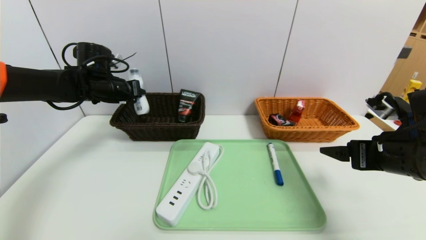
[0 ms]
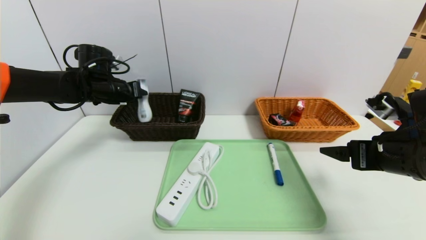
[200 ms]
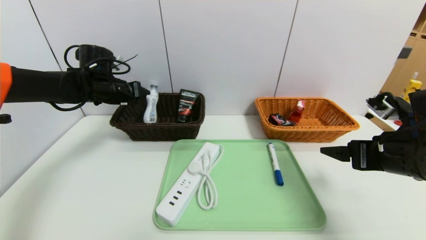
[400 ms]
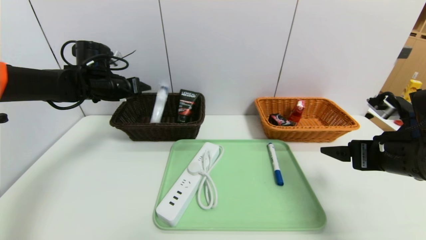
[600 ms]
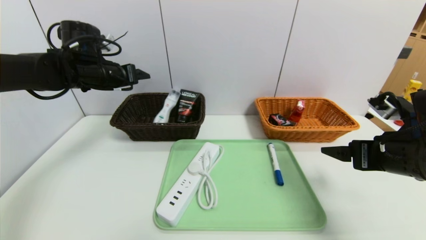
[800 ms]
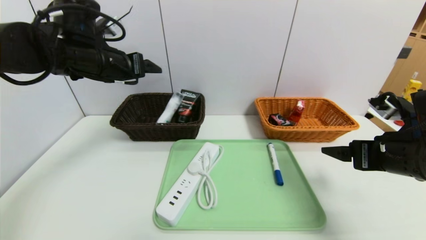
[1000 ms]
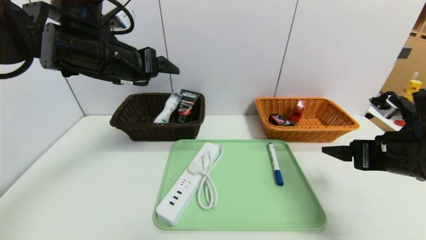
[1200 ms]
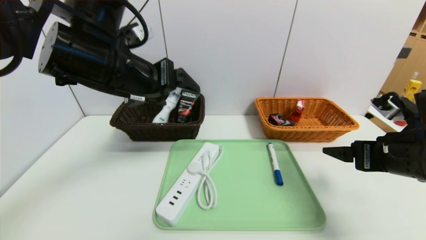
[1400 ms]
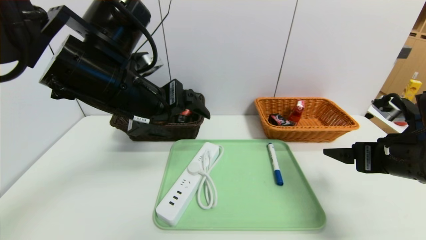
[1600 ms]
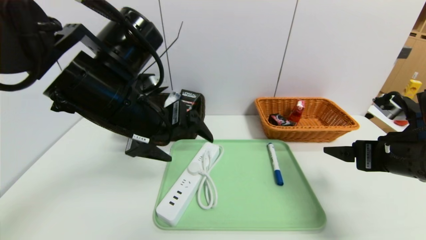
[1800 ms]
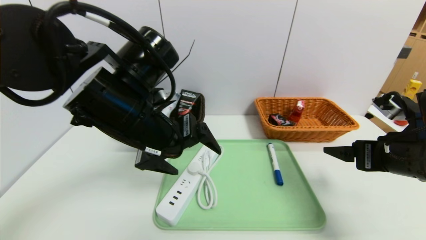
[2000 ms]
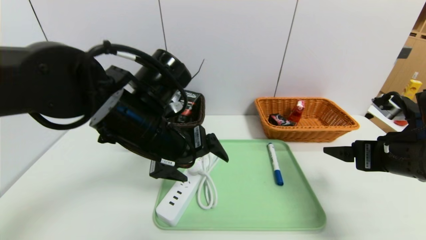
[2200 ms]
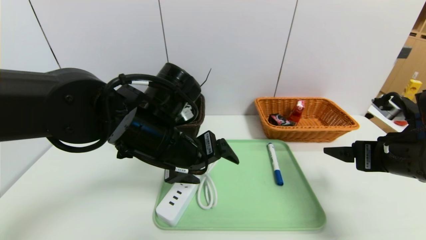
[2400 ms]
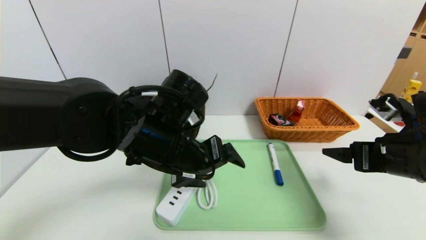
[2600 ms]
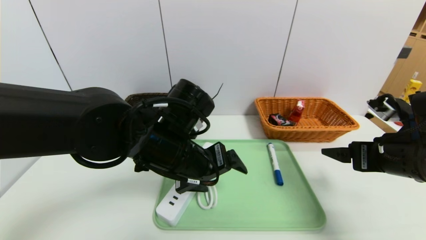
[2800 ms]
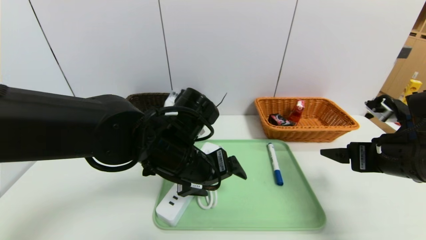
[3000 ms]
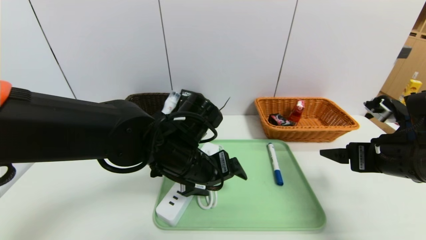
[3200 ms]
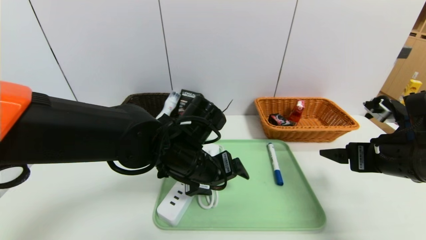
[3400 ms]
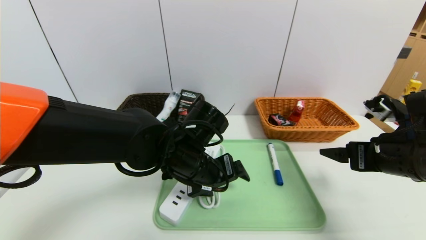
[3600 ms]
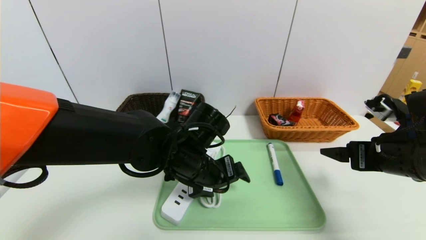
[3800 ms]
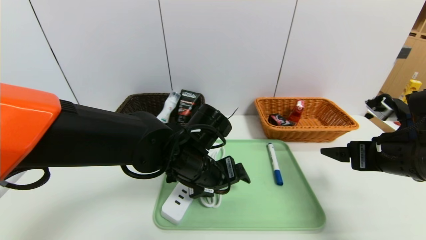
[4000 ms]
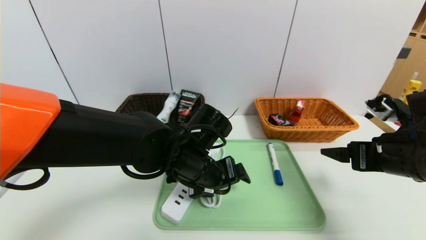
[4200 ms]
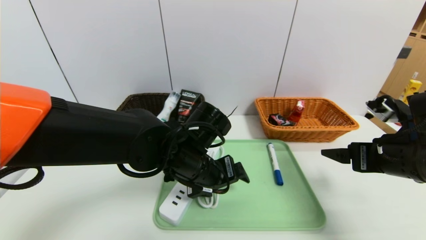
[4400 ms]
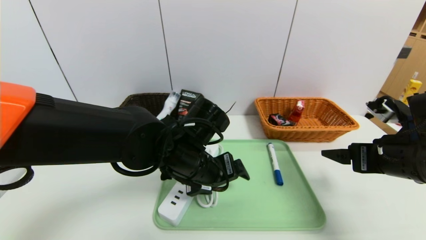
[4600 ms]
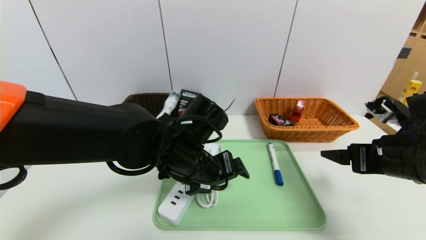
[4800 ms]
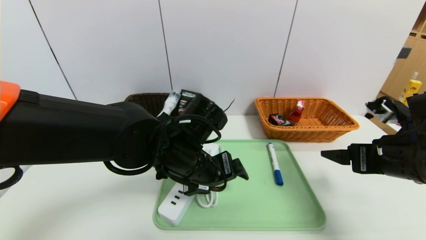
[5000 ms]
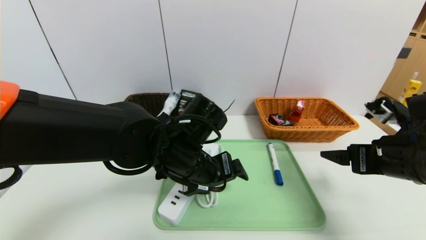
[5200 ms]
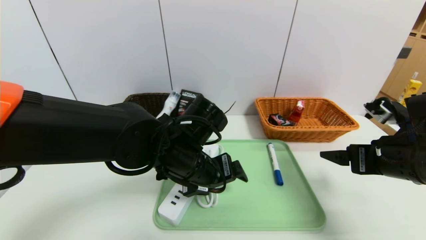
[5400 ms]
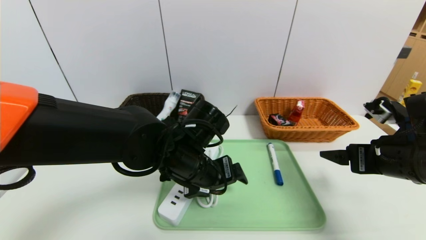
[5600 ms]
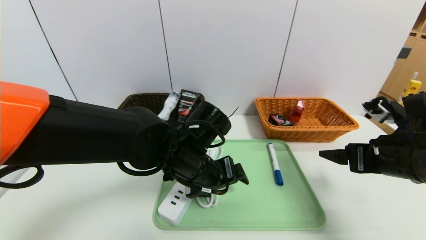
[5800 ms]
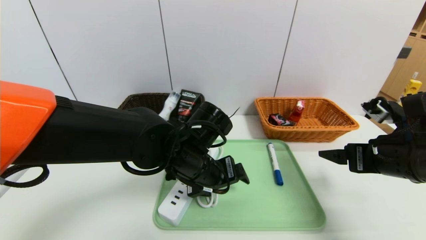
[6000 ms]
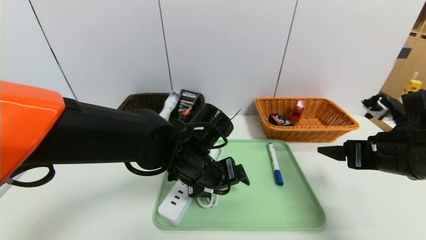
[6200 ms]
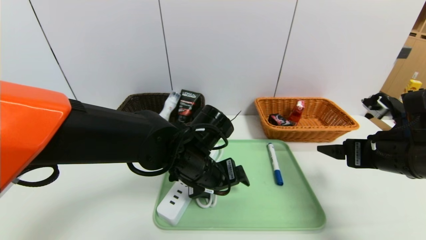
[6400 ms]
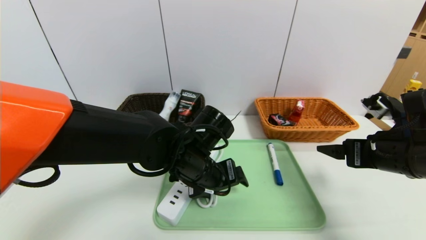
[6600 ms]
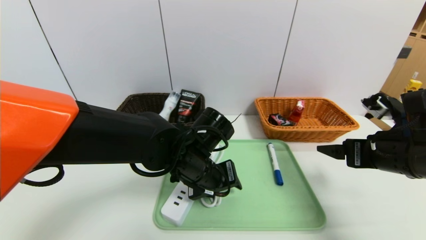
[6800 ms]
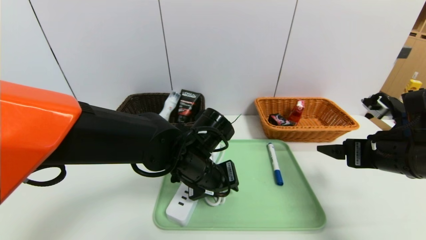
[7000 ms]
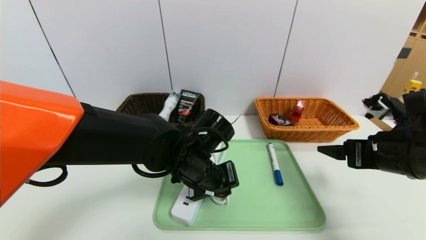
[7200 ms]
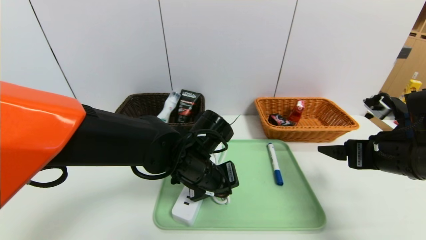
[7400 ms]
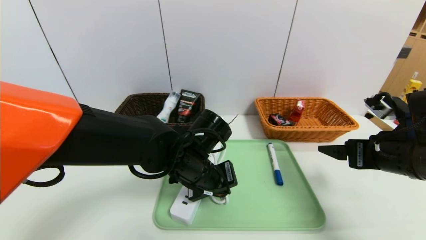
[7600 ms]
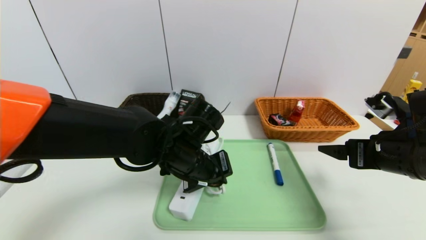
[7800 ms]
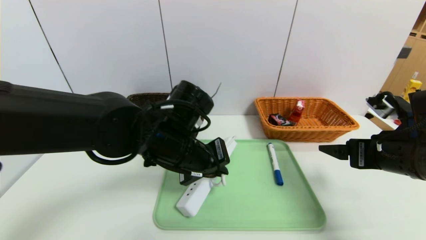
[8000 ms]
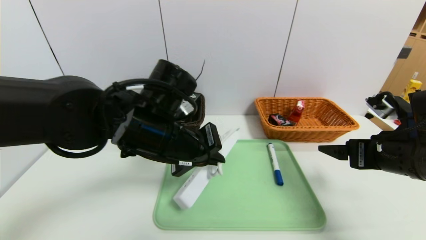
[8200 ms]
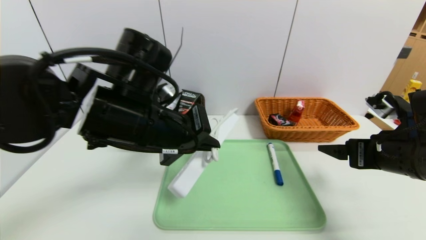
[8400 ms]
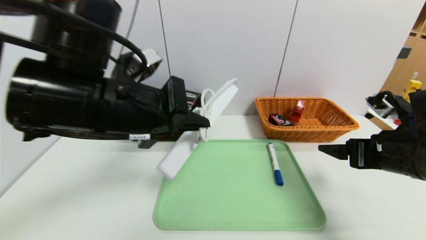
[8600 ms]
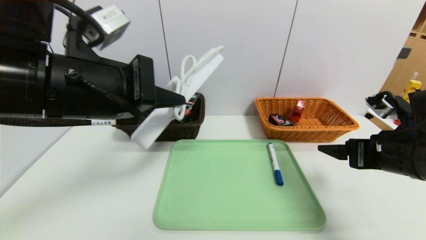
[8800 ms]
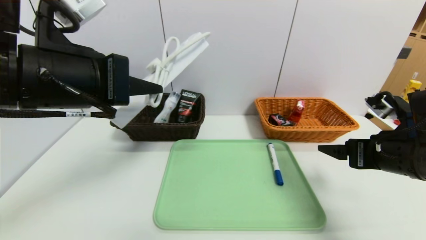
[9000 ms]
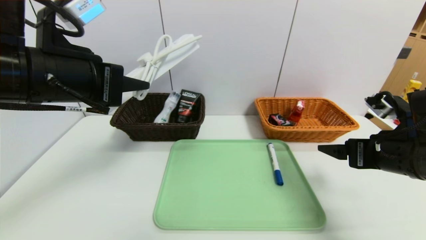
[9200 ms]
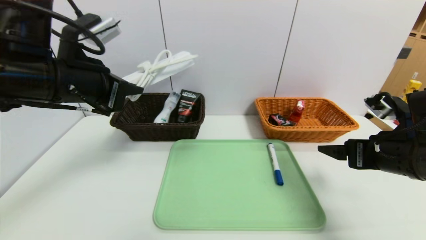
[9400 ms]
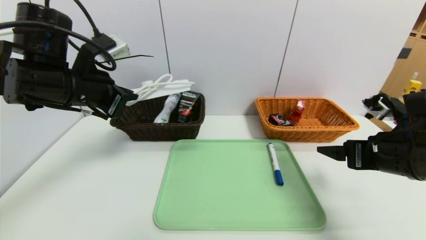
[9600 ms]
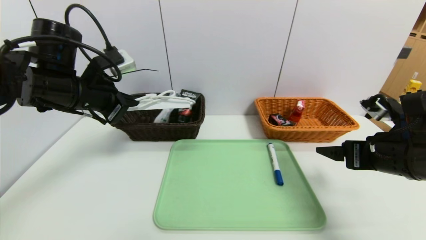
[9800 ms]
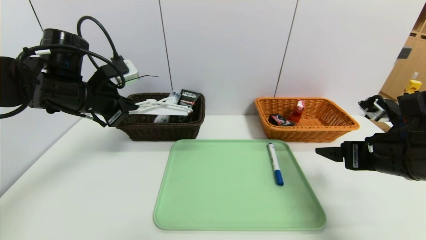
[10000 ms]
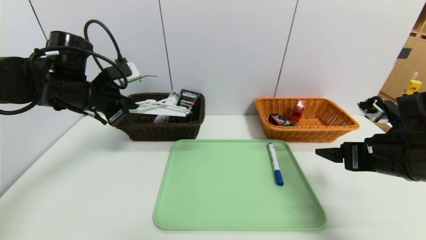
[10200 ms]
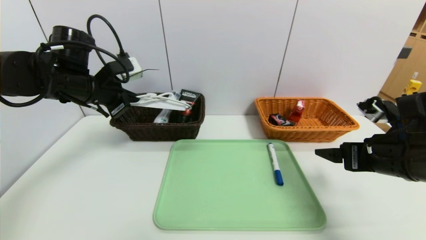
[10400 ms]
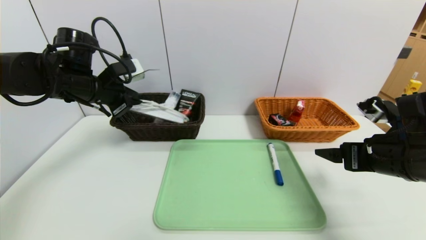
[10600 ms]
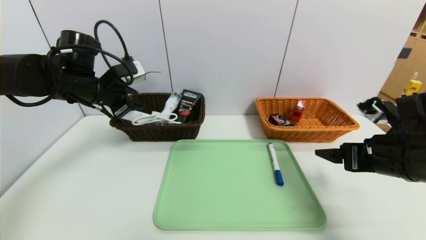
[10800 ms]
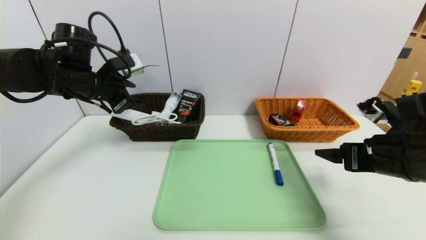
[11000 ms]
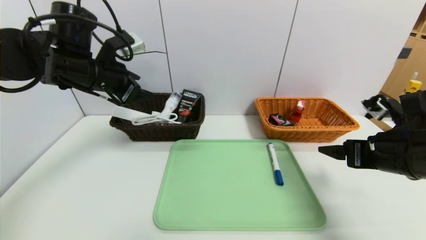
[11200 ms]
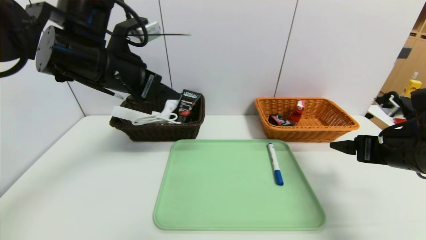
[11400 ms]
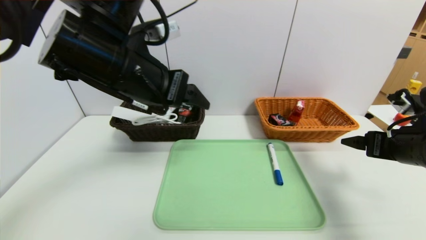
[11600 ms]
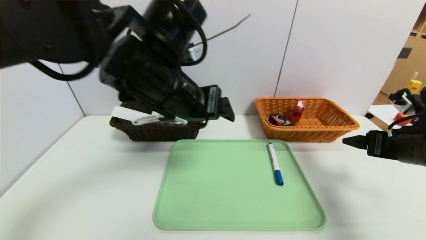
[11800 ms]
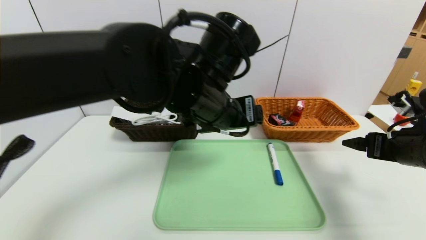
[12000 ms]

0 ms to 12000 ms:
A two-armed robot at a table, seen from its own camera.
Task of the whole recording: place the food in the right basket with the right gripper, and place the non food items in the left basket with the left gripper.
Step, 1000 ms to 11400 ms: Grasp the power strip and put it in the left basket.
0 ms to 1600 ms: The left gripper moves backward, to the right and upward, approximately 25 cm, and opens its fingers.
1600 ms to 3000 ms: The left gripper travels downward and to the right by some 15 cm.
3000 ms to 6000 ms: There are only small adjustments of the grippers.
6000 ms to 7600 ms: The left gripper closes its fingers.
7600 ms to 9000 ms: The left gripper shifts some 25 cm upward, to the left and backward.
9000 ms to 10400 ms: The left gripper shifts approximately 20 cm forward, to the left and downward.
10400 ms to 12000 ms: The right gripper travels to the right by about 5 cm; the left gripper shifts roughly 25 cm to the right, and opens its fingers.

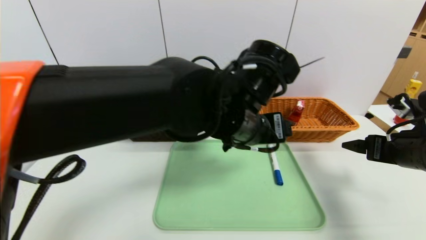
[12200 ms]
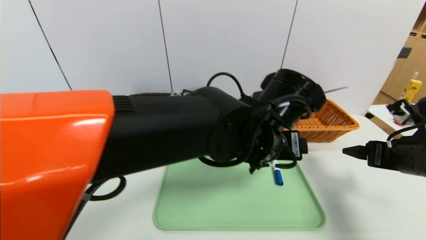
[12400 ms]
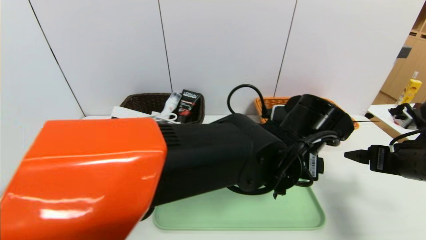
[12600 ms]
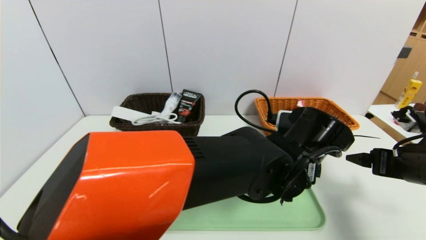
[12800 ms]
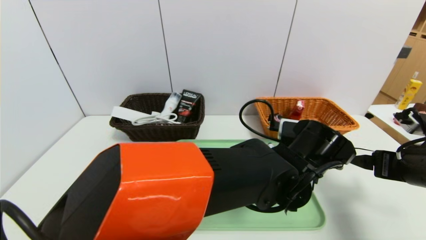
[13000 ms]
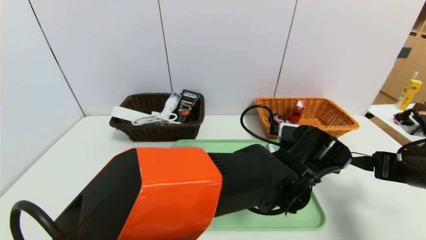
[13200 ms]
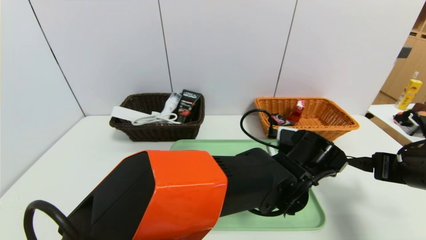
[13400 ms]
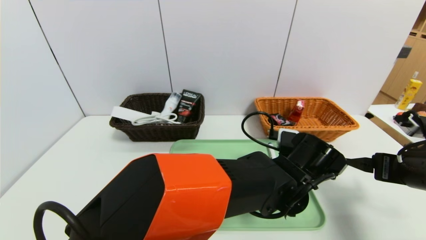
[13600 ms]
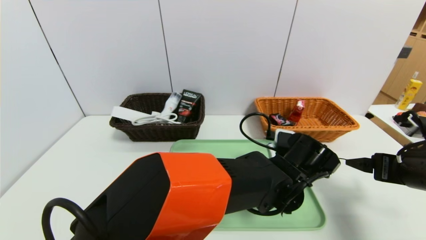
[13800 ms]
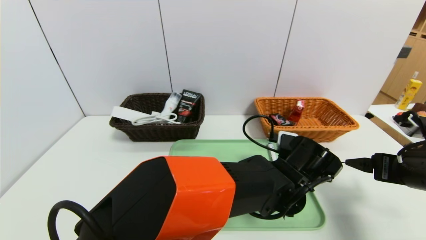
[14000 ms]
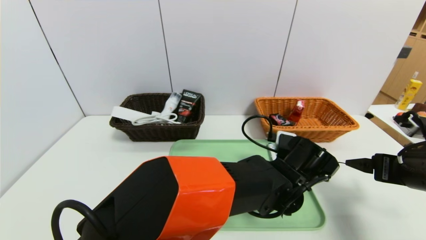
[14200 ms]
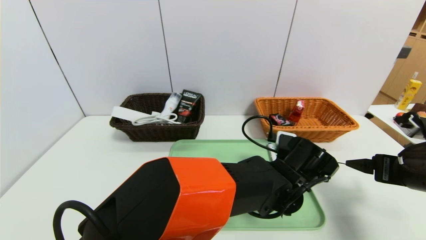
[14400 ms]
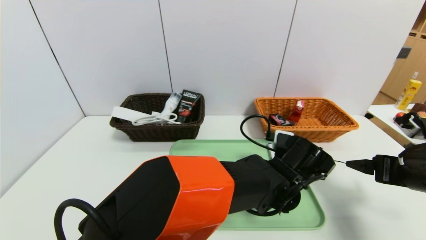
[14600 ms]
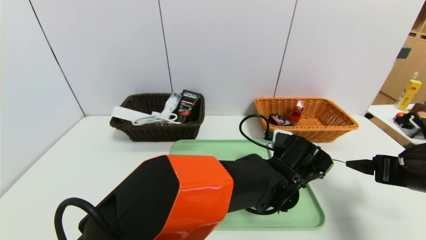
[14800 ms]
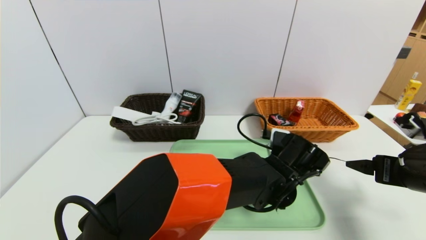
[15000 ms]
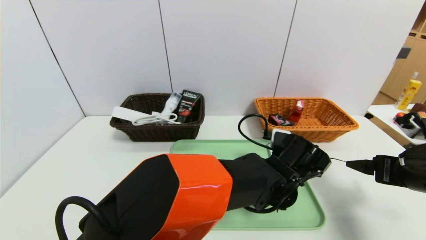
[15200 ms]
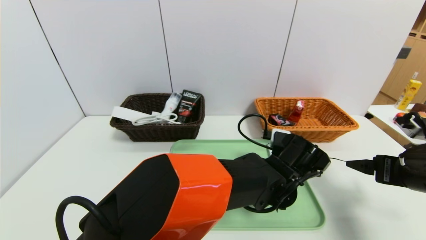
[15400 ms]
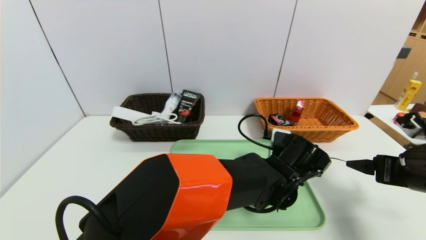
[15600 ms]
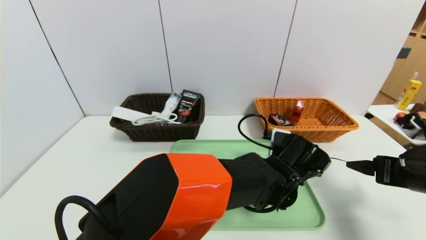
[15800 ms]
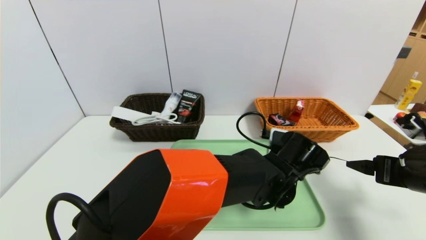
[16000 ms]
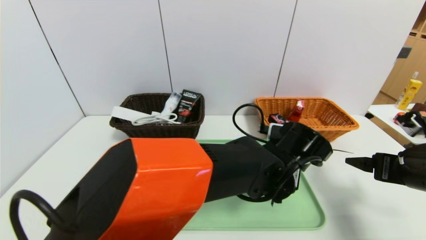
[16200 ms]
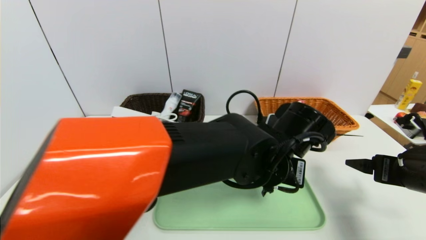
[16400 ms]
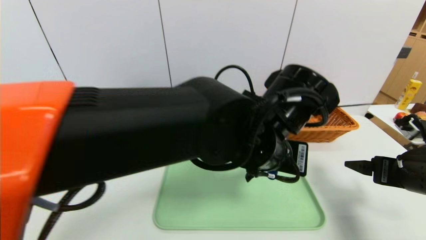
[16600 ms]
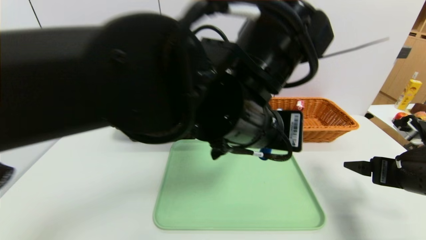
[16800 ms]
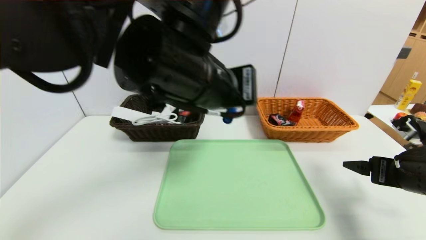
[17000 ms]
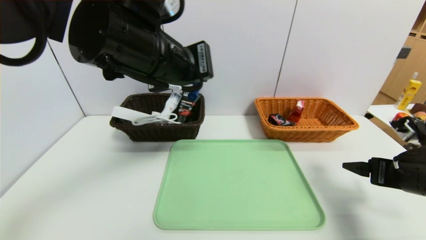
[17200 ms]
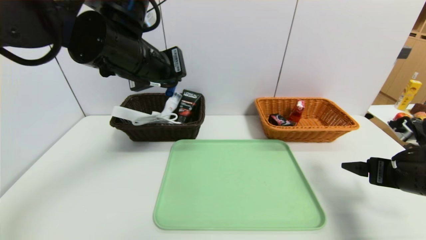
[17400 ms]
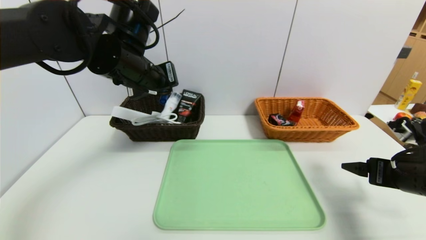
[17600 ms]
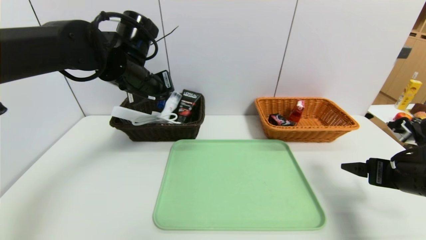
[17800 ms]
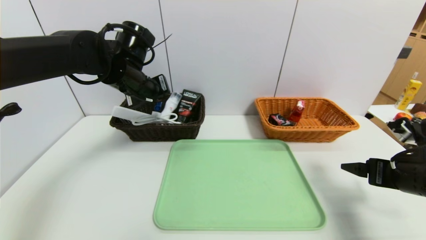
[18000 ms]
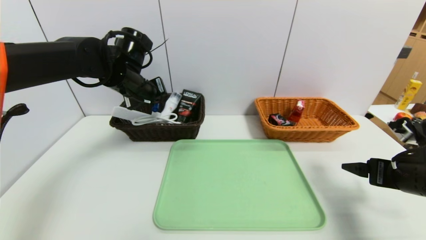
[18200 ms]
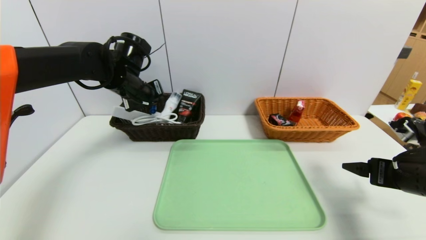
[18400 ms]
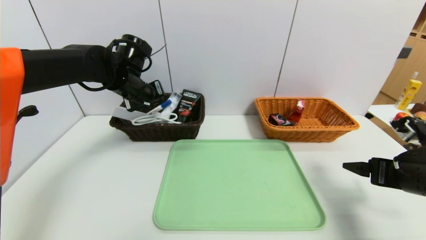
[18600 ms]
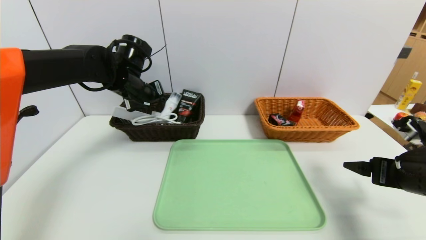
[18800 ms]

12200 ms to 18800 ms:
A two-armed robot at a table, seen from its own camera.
Task of the whole recording: place the food in the right basket with the right gripper, and place the non food items in the left basket with the left gripper.
12200 ms to 13800 ms: The left gripper is displaced downward and to the right by roughly 15 cm.
13800 ms to 15400 ms: The left gripper closes.
15400 ms to 17200 ms: The left gripper shifts approximately 35 cm upward and to the left.
17200 ms to 18800 ms: The left gripper shifts approximately 20 cm forward, to the left and downward, and opens its fingers.
